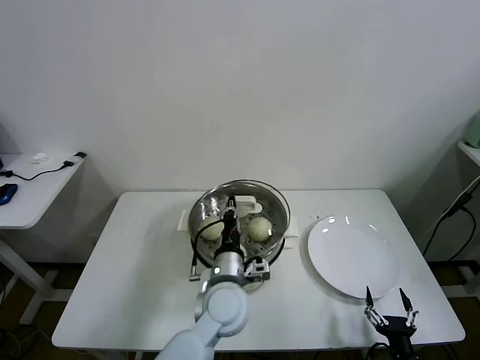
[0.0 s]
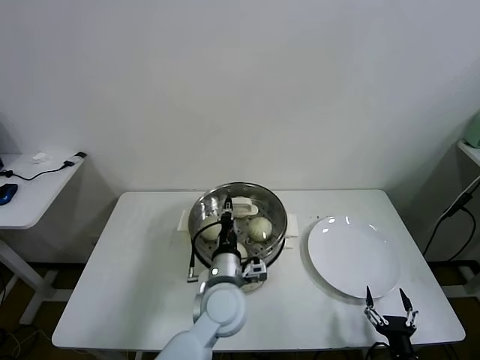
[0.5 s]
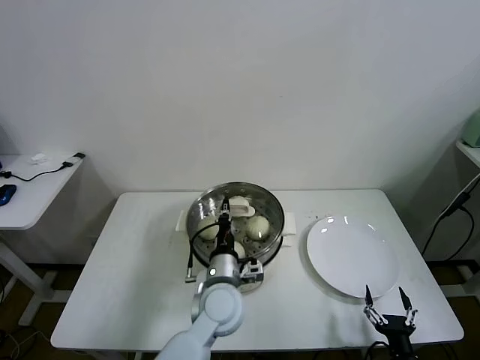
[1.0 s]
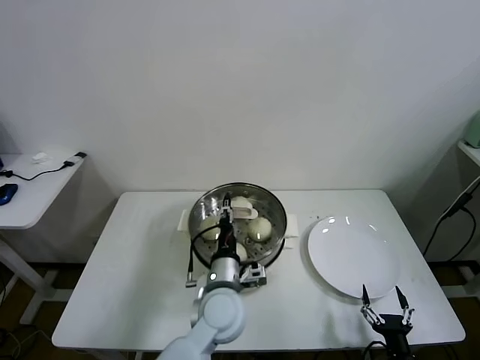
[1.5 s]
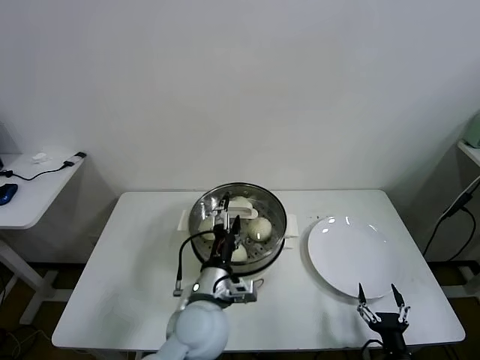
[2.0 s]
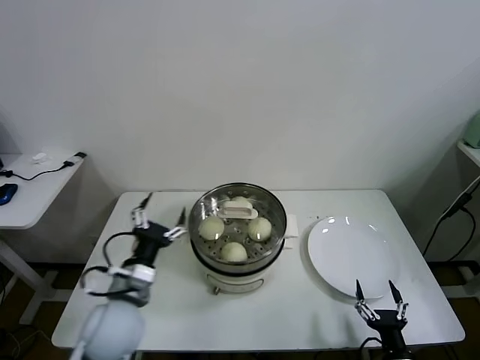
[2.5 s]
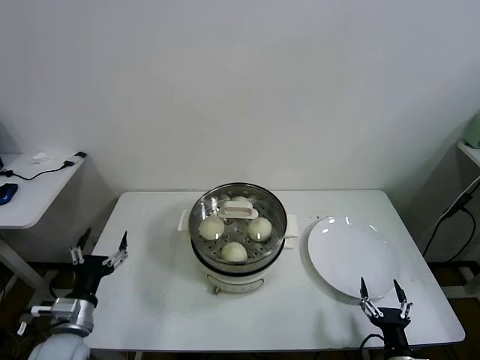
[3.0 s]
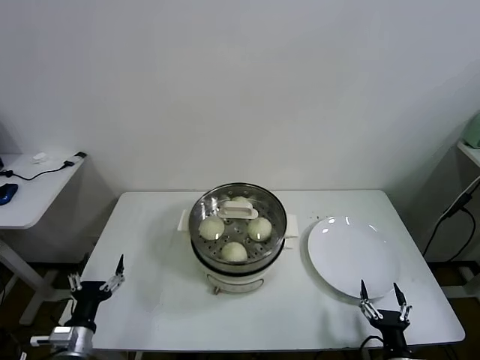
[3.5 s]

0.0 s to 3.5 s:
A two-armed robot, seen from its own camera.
Task of the whole recording: take steamed baozi put them in steamer.
0.0 to 2.0 s: The left gripper ends up roughly 5 cm from where it was, and opens.
2.0 to 3.5 s: The left gripper shifts approximately 30 cm to the left.

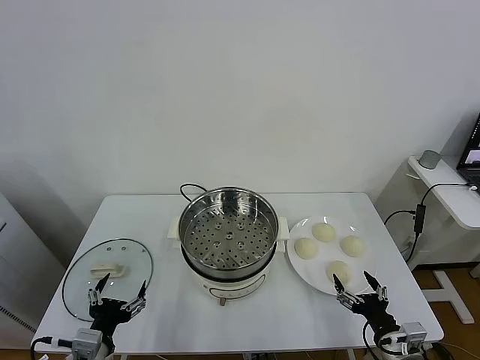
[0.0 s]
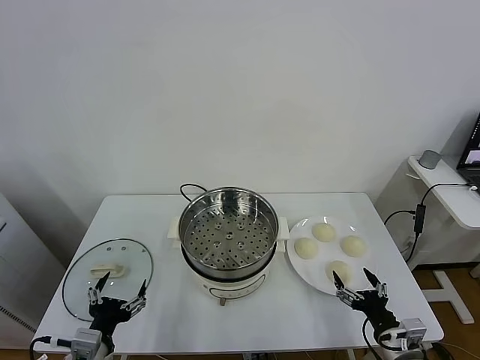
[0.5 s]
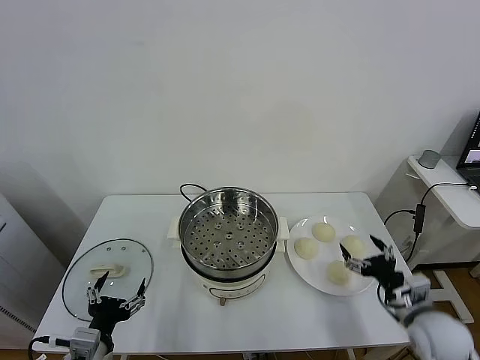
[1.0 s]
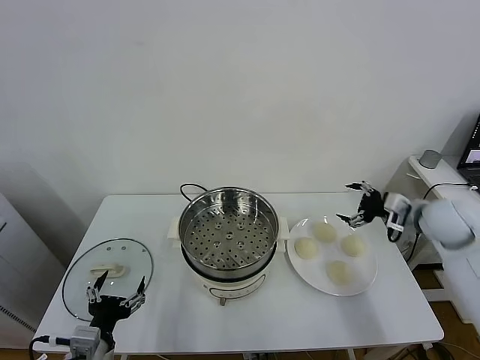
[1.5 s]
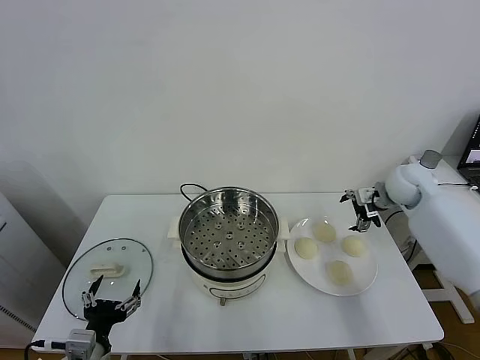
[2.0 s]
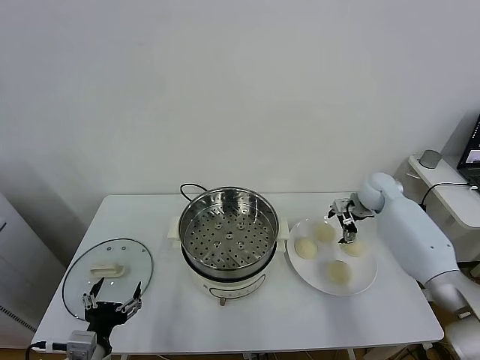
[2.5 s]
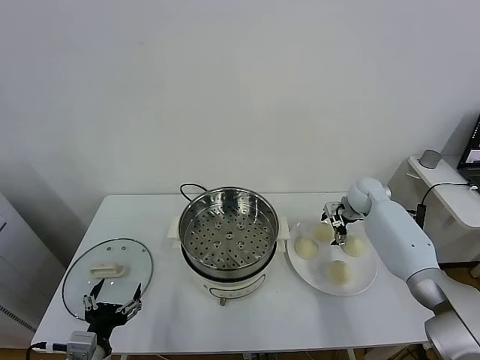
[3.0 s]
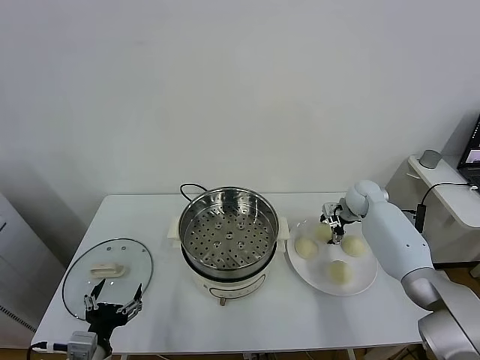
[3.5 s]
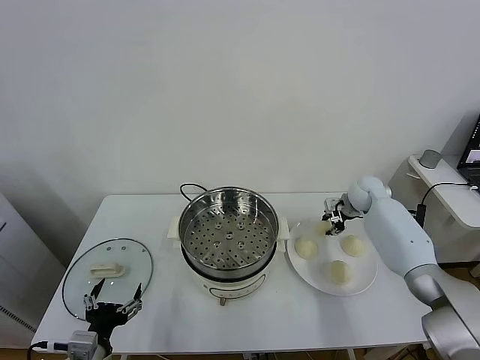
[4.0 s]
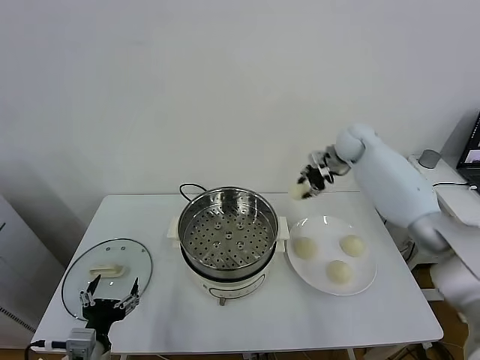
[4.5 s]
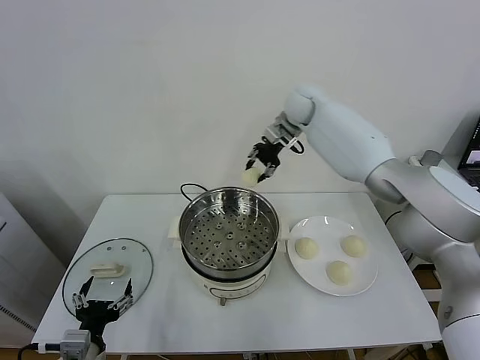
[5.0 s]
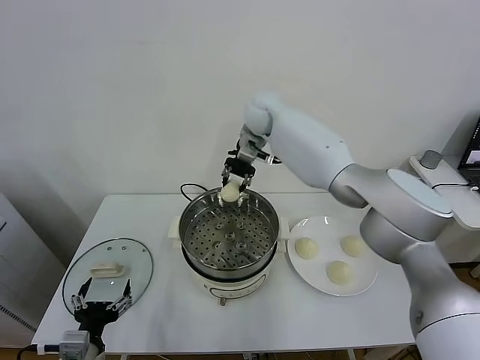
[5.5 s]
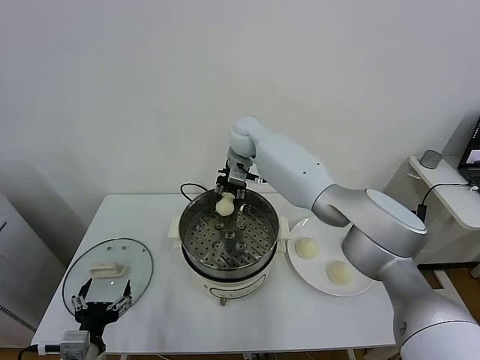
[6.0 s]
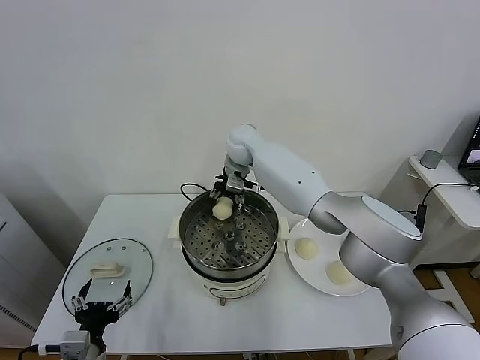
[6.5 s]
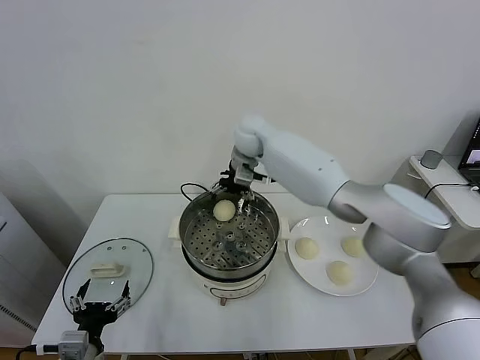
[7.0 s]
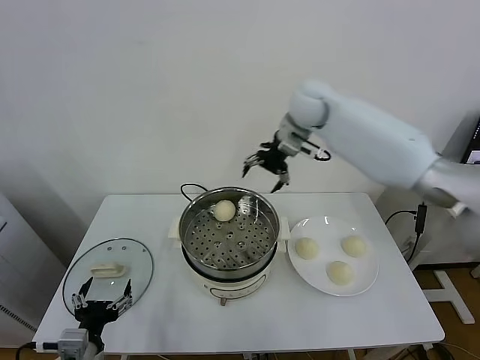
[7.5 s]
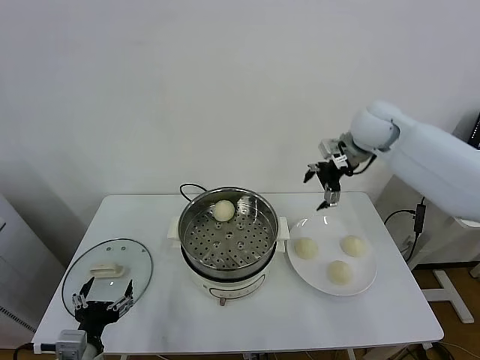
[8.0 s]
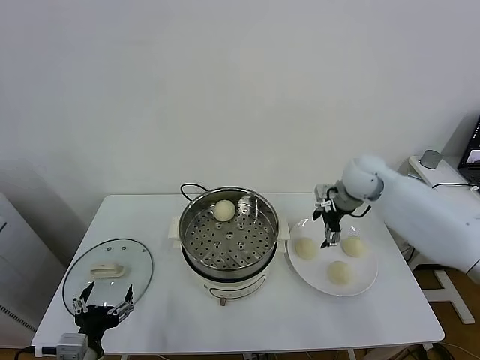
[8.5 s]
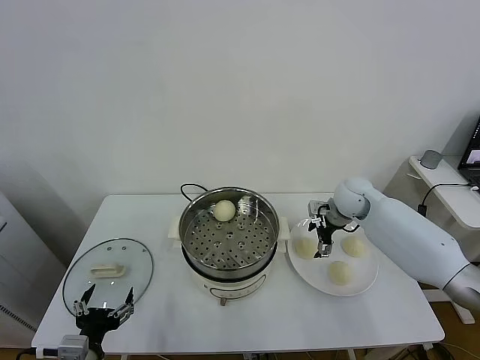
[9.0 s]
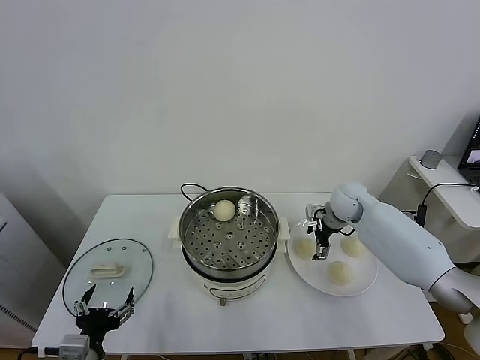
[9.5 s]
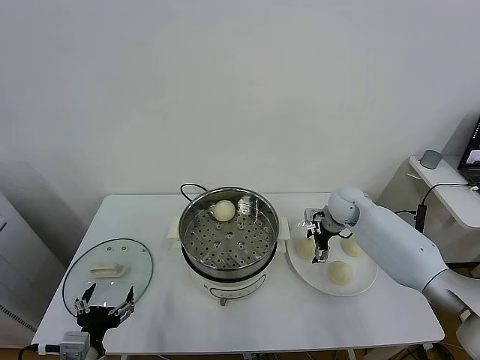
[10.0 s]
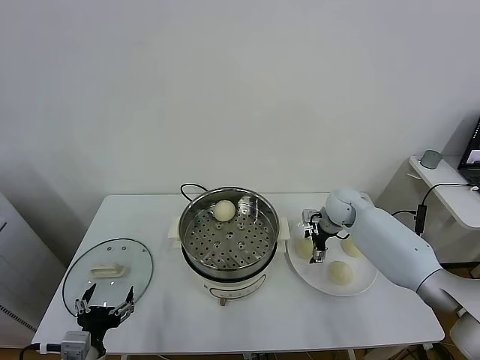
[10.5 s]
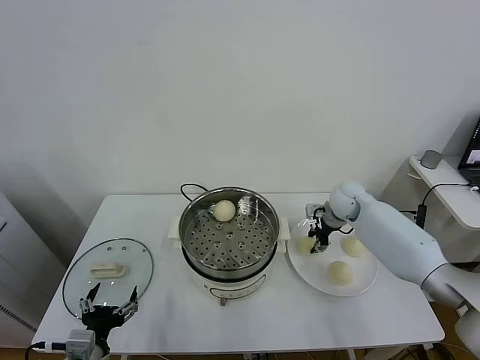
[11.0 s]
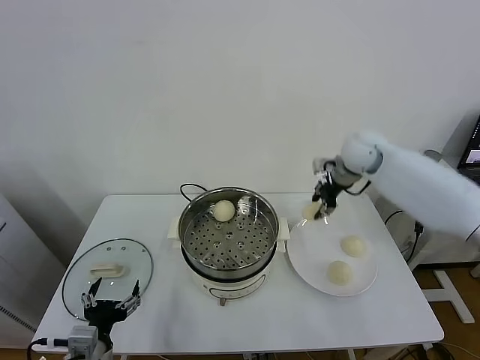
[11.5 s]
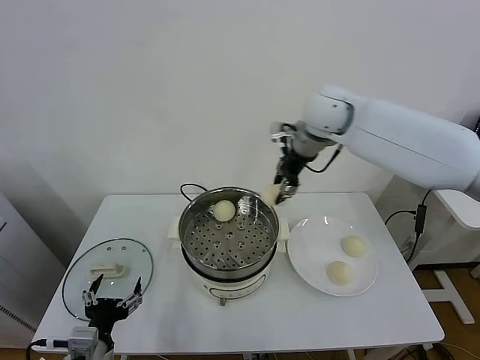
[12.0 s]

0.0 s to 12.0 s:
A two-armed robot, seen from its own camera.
Task of the whole recording: take steamed baozi put them in steamer.
Step, 0.0 to 3.5 s: Grasp the baozi in the plate with right gripper.
Step, 4.0 to 6.5 s: Place the baozi on the steamer with right gripper.
Step, 7.0 to 10.5 s: Grasp the baozi in the plate with right gripper.
2.0 to 4.0 s: The right gripper travels downward and forward by some 10 cm, and closes its fingers.
4.0 to 6.0 s: The right gripper is displaced to the left and upward by some 35 cm.
6.0 to 8.0 s: The right gripper is displaced to the right by roughly 25 cm, and opens up.
8.0 to 10.0 s: The right gripper heads downward, covering about 20 cm.
10.0 to 12.0 s: The right gripper heads upward and to the left, covering approximately 30 cm, and closes up.

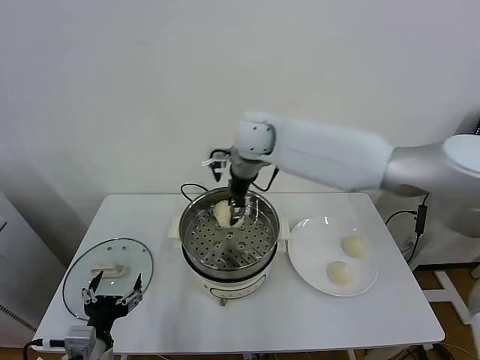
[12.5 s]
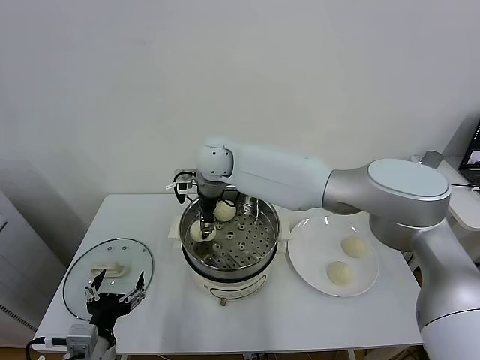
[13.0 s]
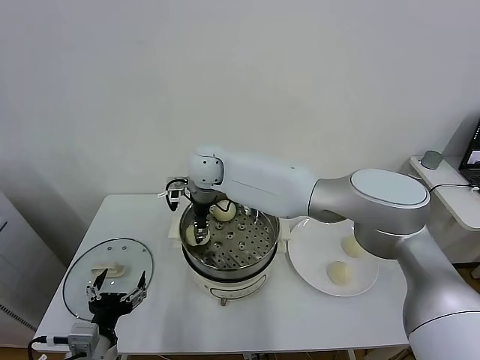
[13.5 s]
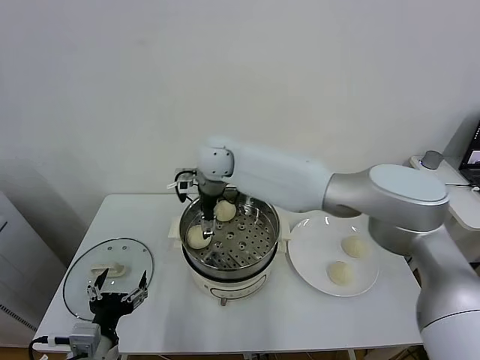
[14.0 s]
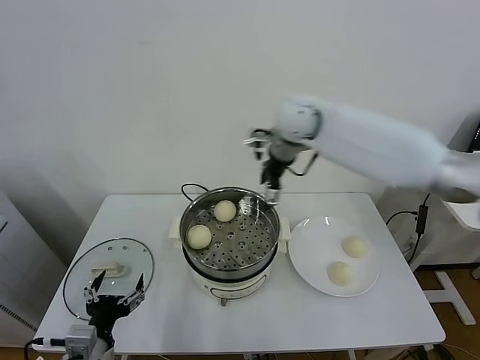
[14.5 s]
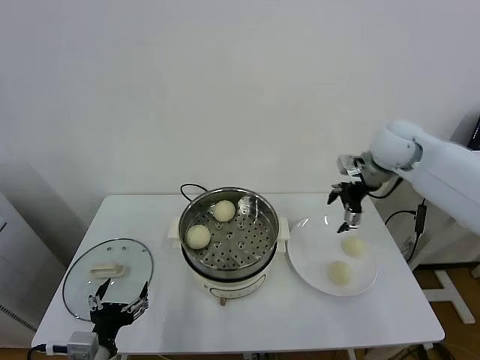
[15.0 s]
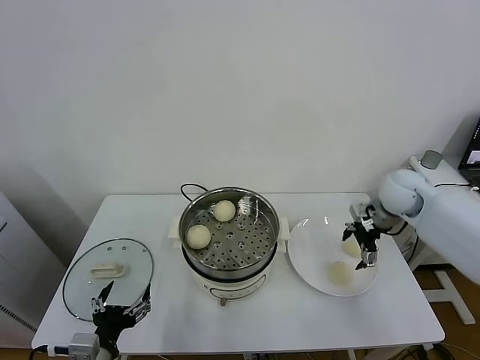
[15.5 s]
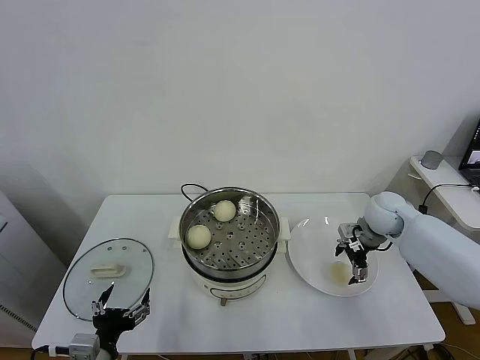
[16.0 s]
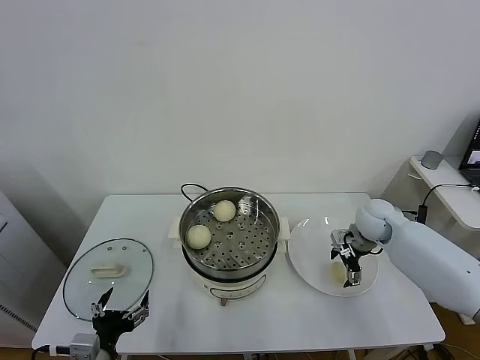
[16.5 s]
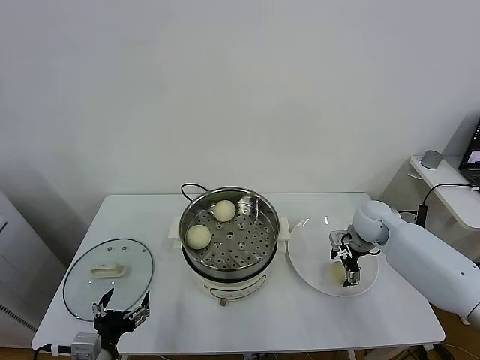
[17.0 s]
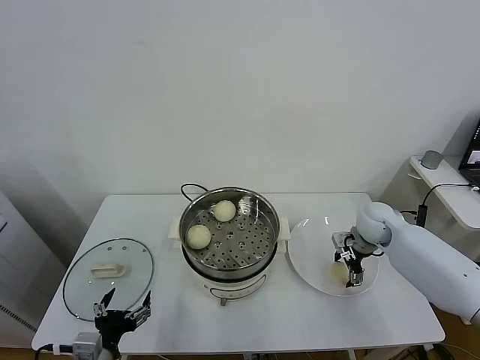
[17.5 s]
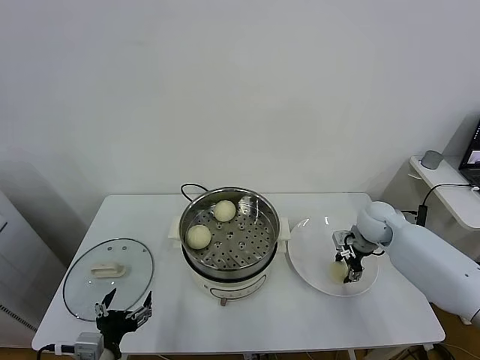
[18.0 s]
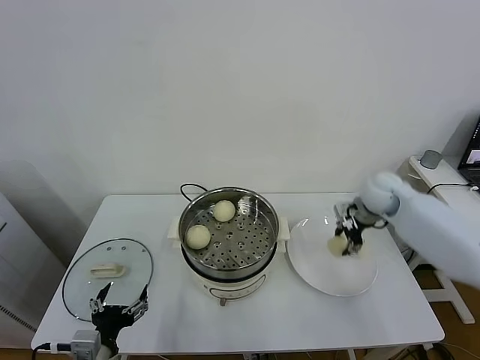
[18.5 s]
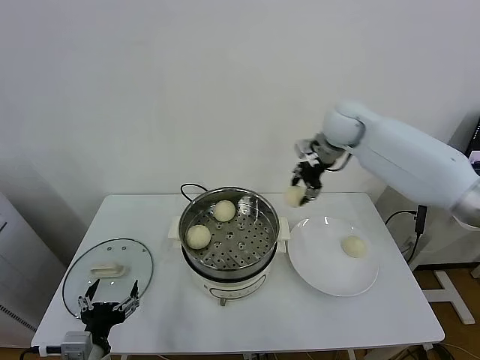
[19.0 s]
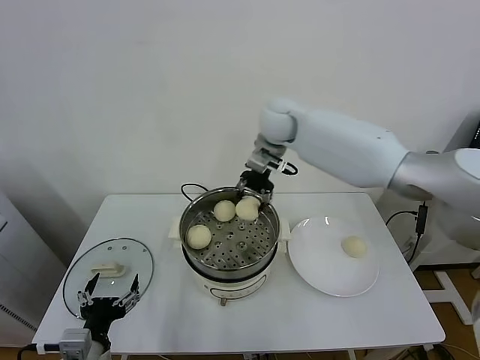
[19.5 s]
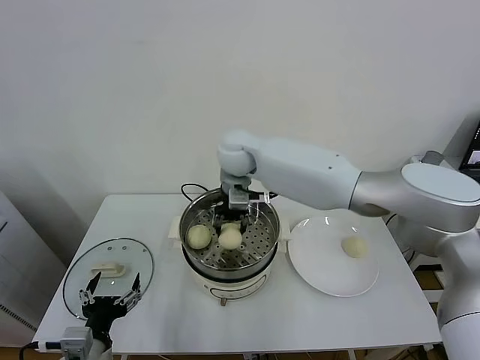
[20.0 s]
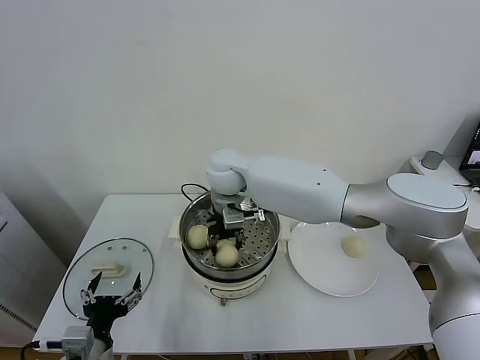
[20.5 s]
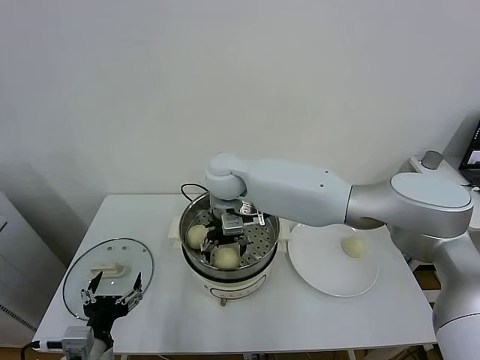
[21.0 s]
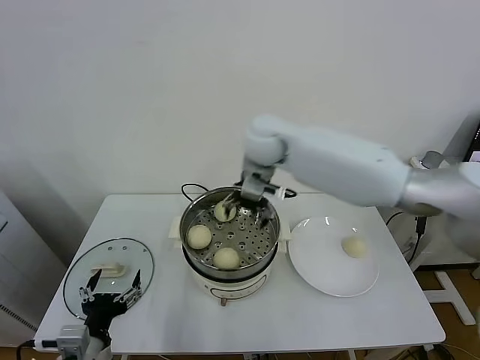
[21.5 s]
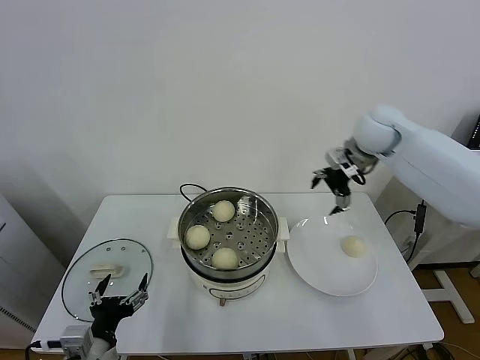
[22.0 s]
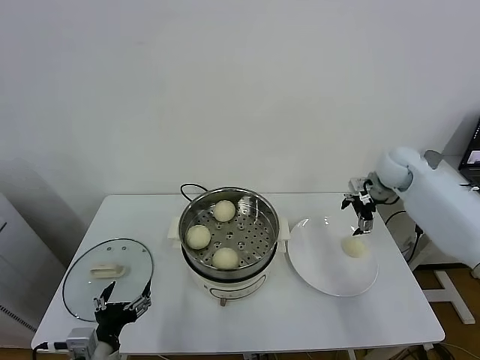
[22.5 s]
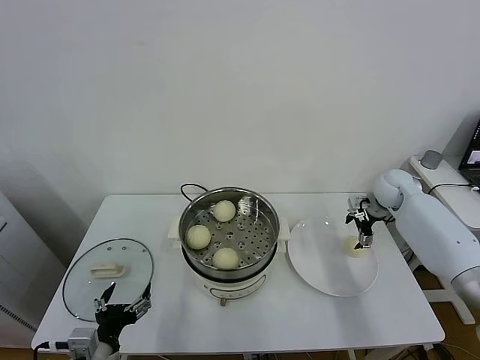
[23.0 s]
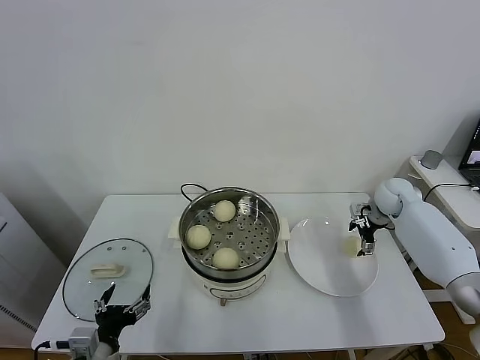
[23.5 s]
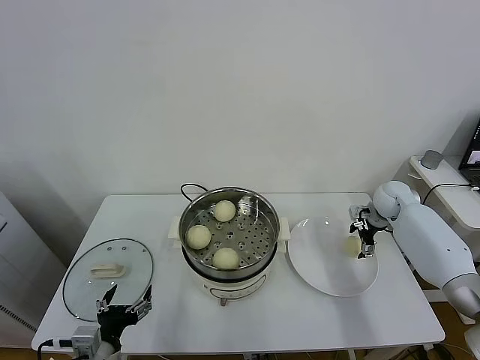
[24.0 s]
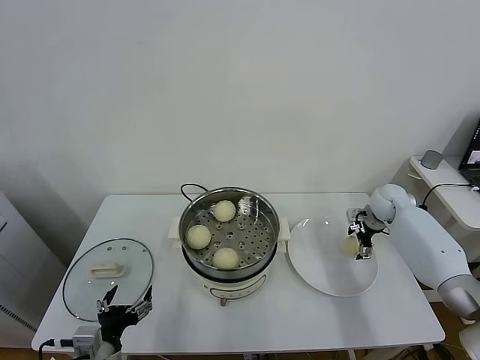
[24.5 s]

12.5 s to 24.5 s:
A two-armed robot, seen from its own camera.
Task of the whole recording: take steamed baozi put them in steamer.
Step, 14.0 to 18.0 s: Grasp the baozi in the plate with right gripper.
Step, 18.5 to 21.0 s: Place the baozi on the steamer with right gripper.
12.5 to 14.5 s: The right gripper shifts some 15 cm to the right, and opens its fingers.
14.5 to 16.5 s: The right gripper goes roughly 30 cm downward and to the right.
16.5 to 18.5 s: The right gripper moves upward, roughly 10 cm, and closes.
18.5 to 20.5 s: The right gripper is displaced to the left by about 35 cm.
20.5 to 22.5 s: The right gripper goes some 40 cm to the right, and opens up.
22.5 to 24.5 s: The right gripper goes approximately 10 cm downward.
